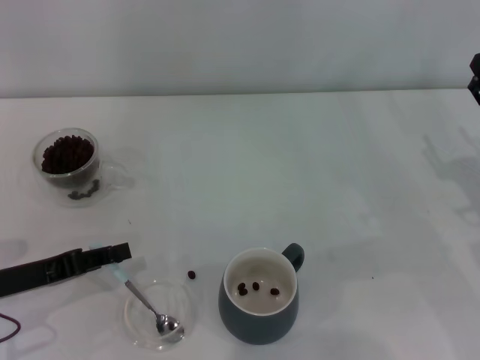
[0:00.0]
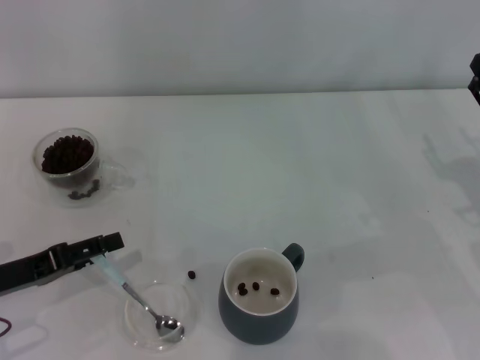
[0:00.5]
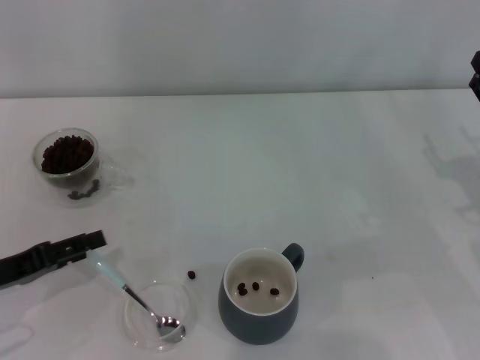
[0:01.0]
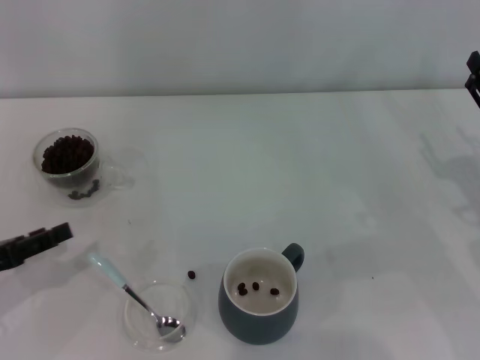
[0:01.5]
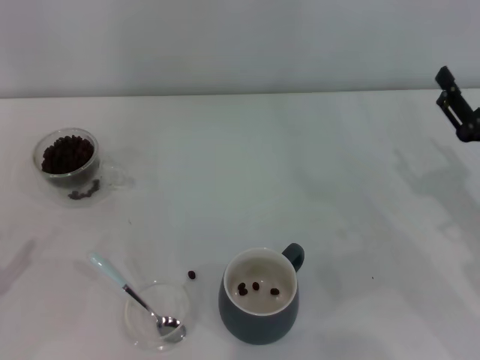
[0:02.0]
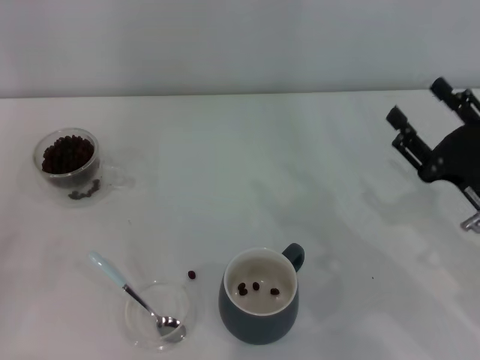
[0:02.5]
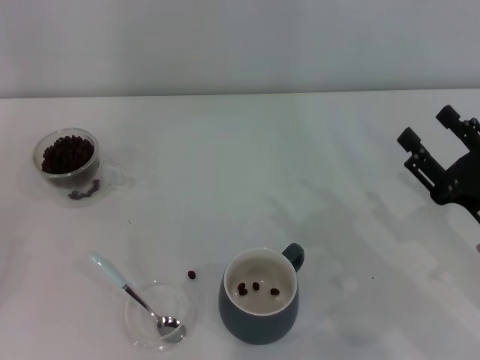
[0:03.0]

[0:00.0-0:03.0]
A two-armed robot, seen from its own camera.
Task of the whole recording: Use a blue spoon to take out the coffee beans from the glass and pour them into the gray cup.
0:00.0 to 0:01.5: The left gripper opens.
0:01.5 to 0:03.0: The right gripper shifts roughly 5 cm backward; the left gripper moves backward and to the left, some 15 cm.
